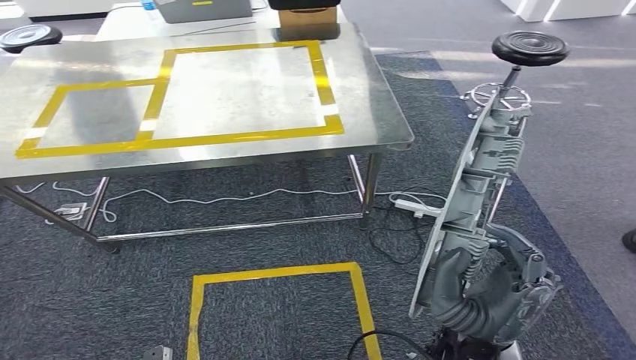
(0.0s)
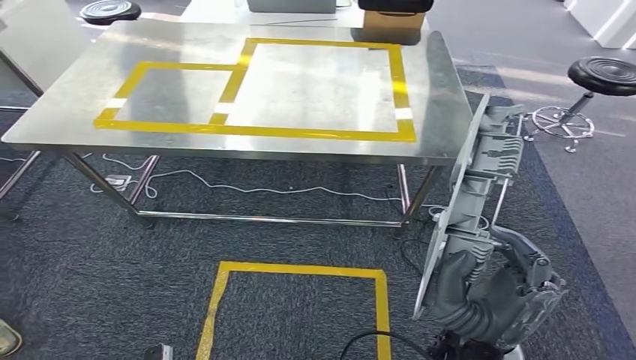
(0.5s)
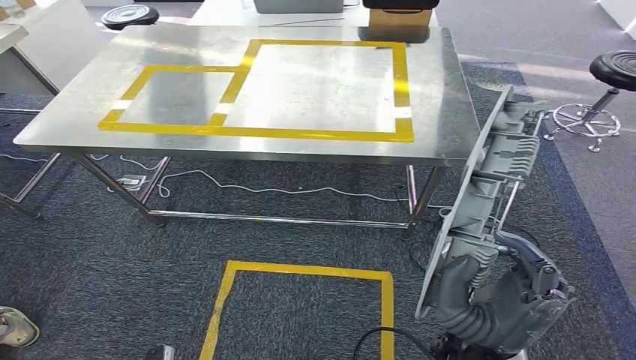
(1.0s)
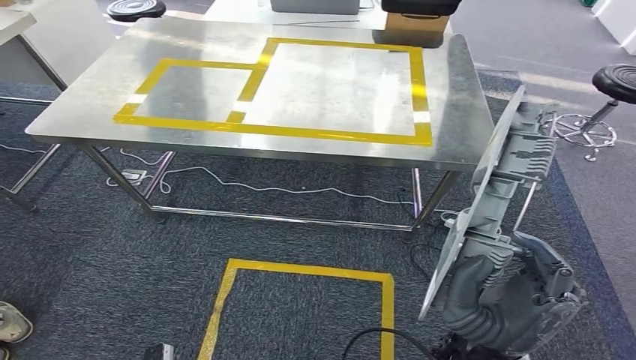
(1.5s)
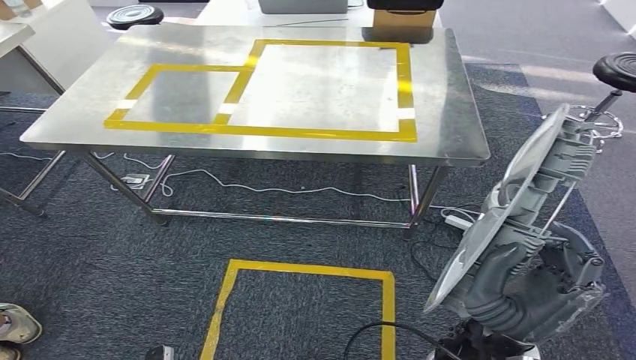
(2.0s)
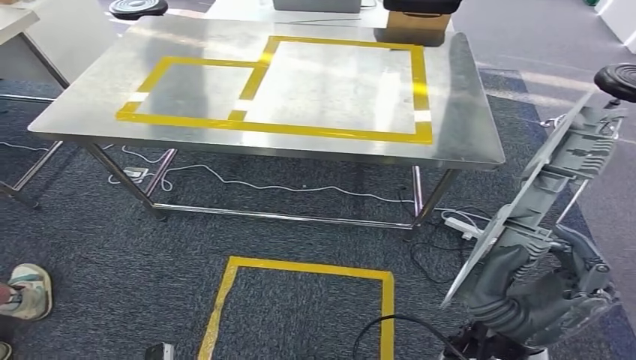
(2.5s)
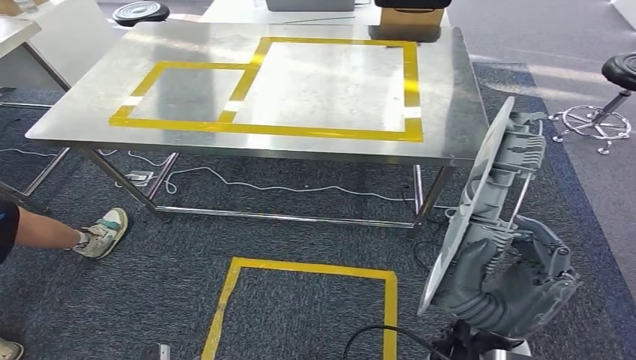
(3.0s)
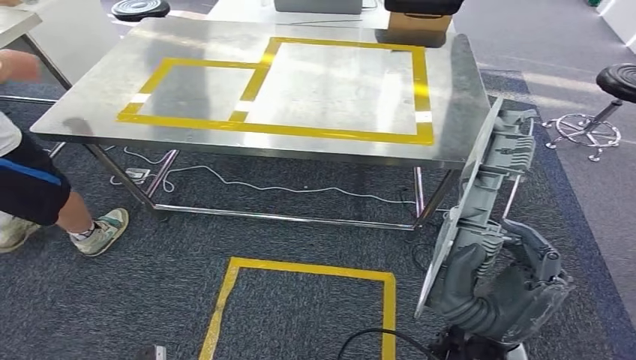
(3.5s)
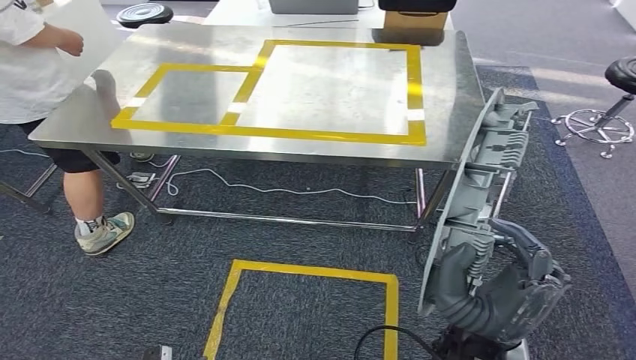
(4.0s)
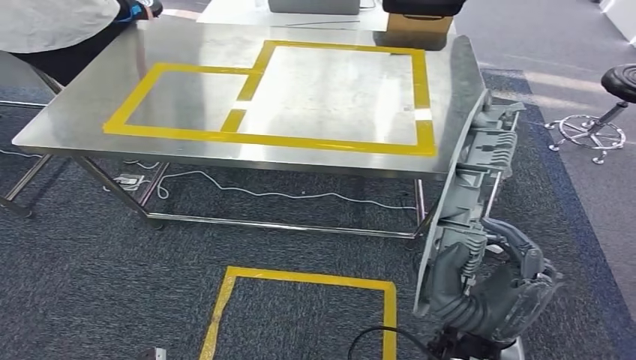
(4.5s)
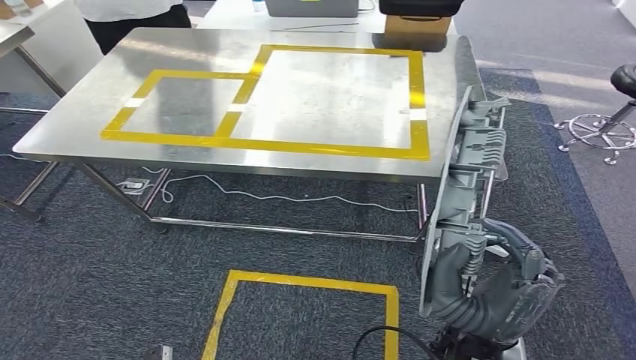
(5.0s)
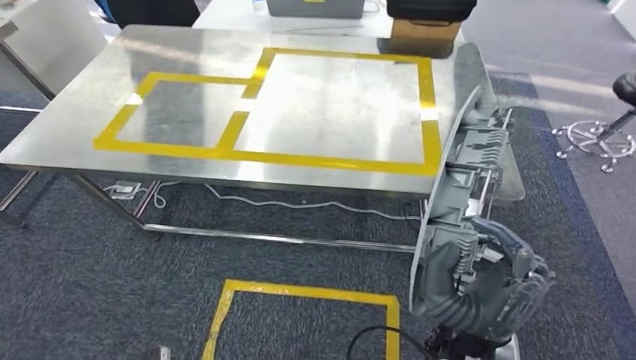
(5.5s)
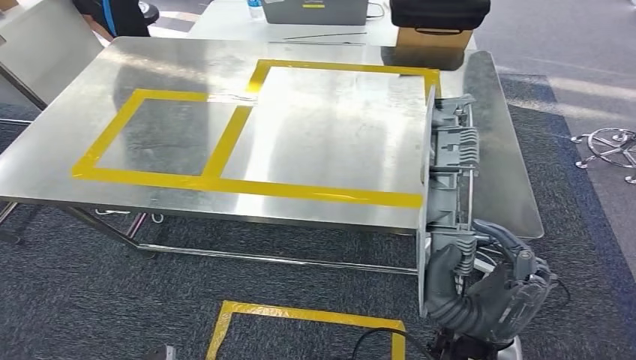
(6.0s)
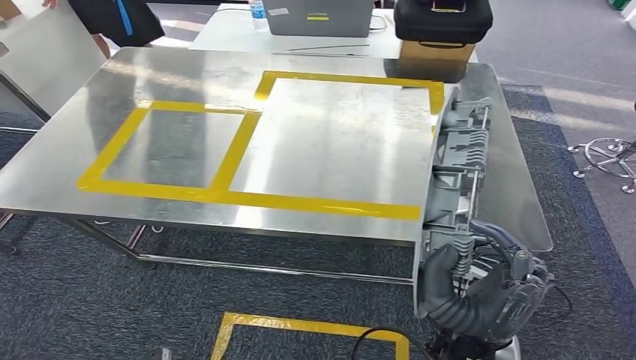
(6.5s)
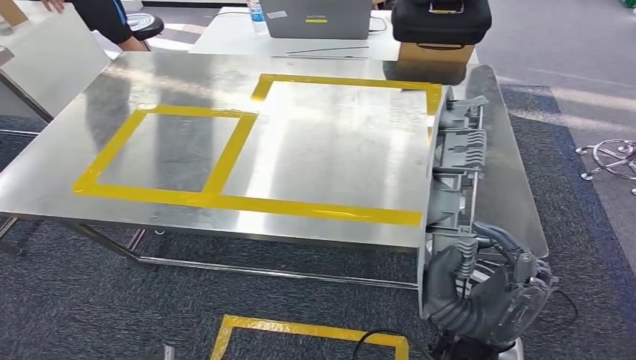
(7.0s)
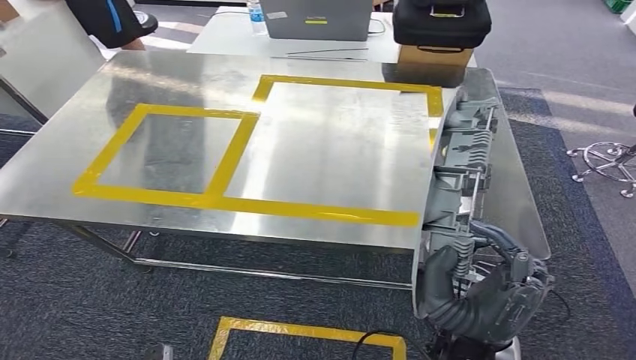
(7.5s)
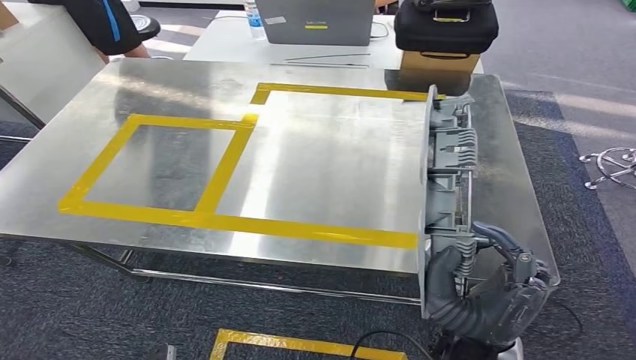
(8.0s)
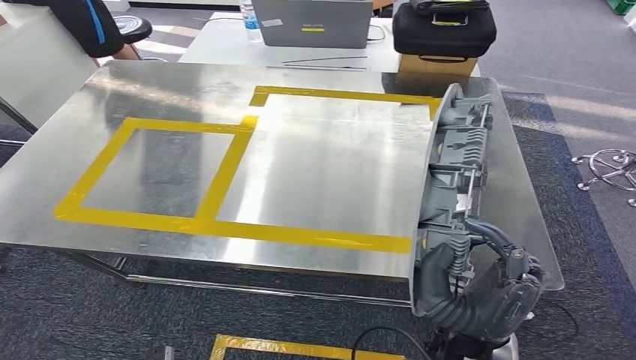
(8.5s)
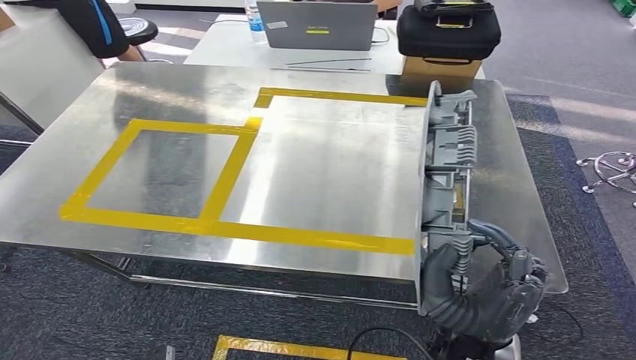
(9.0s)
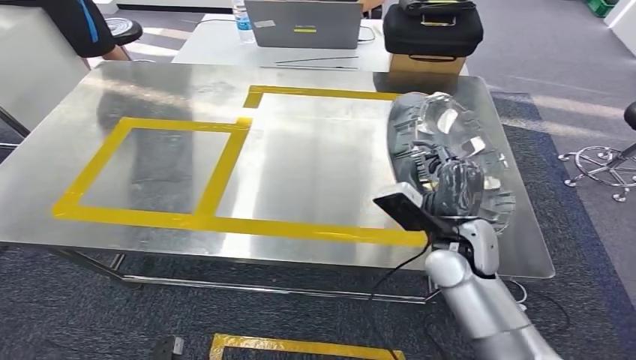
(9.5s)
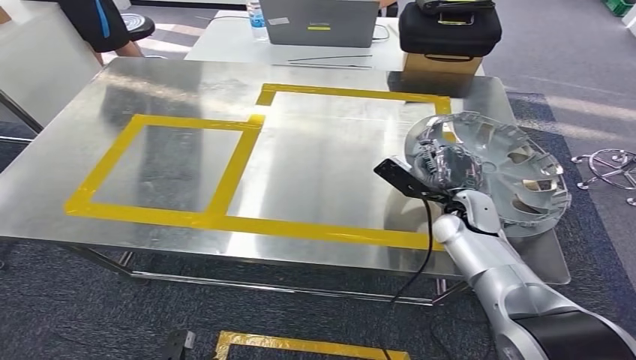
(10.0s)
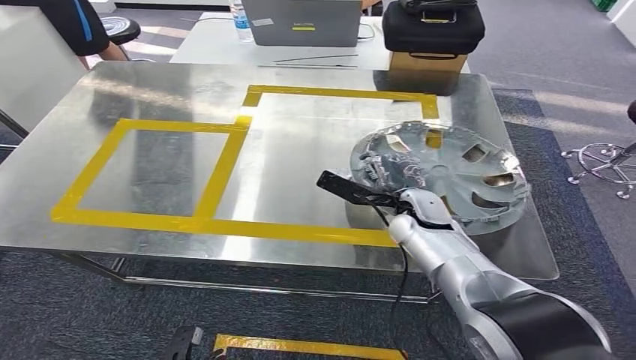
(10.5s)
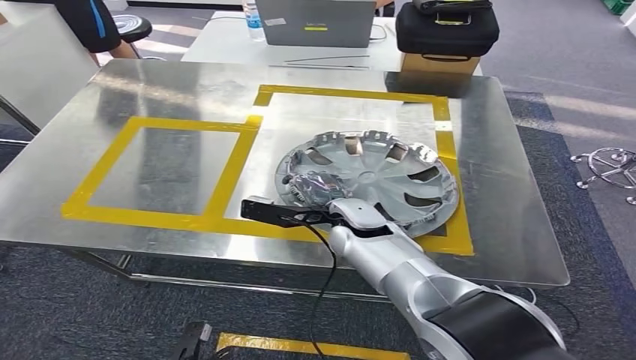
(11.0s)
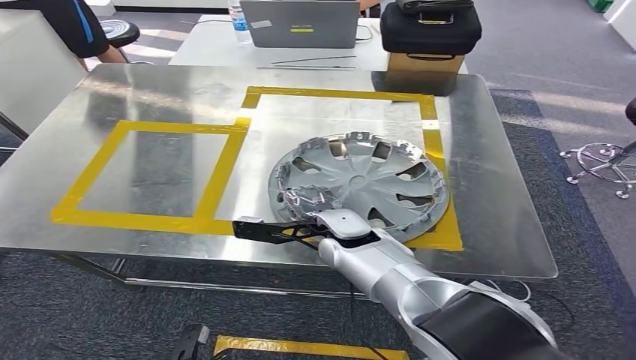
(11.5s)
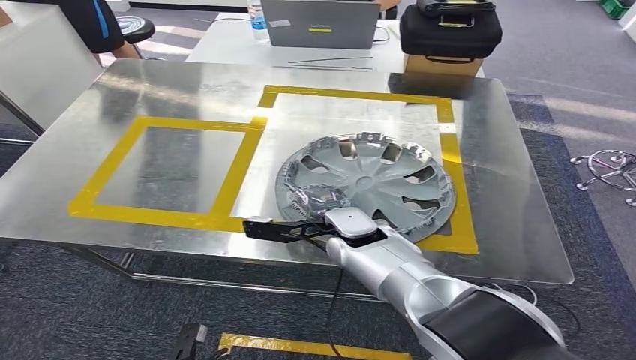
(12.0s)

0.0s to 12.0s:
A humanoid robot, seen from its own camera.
Step, 0.0s to 8.0s: Move the small component to the workbench.

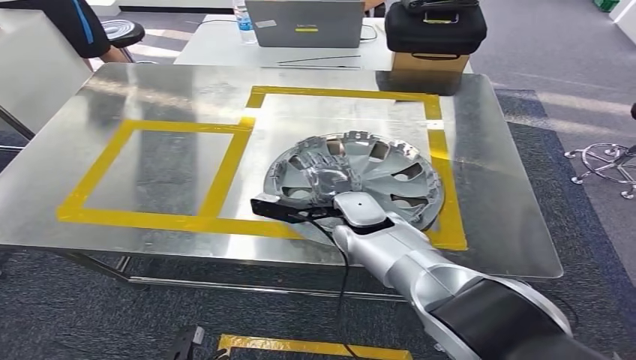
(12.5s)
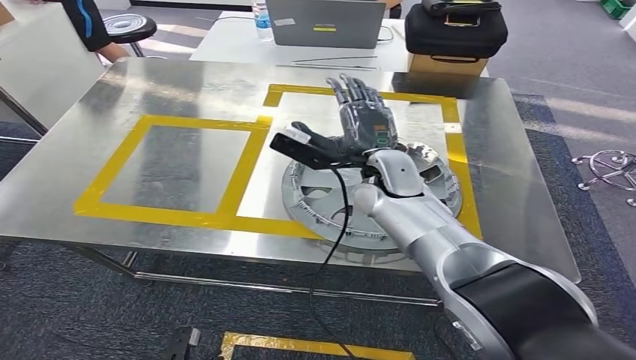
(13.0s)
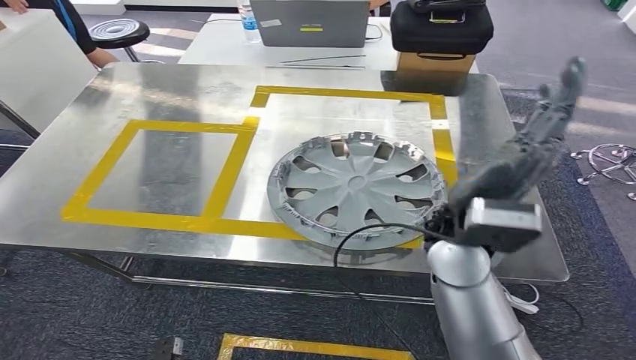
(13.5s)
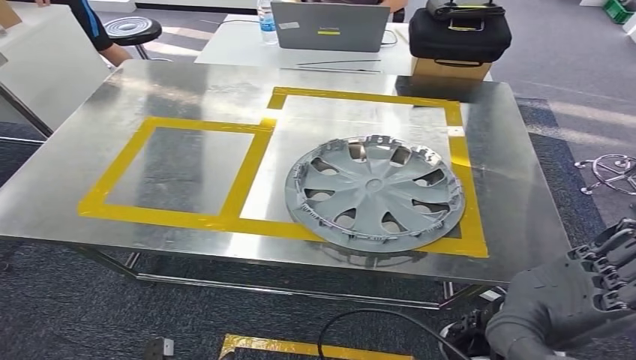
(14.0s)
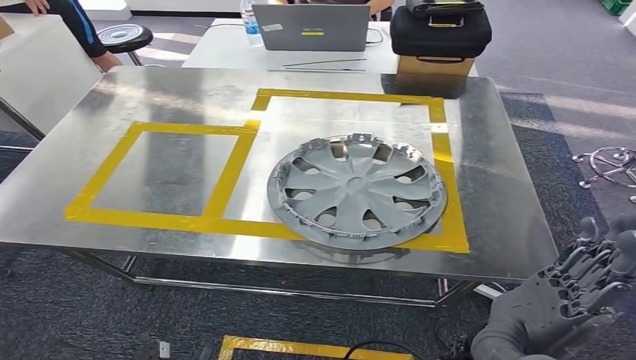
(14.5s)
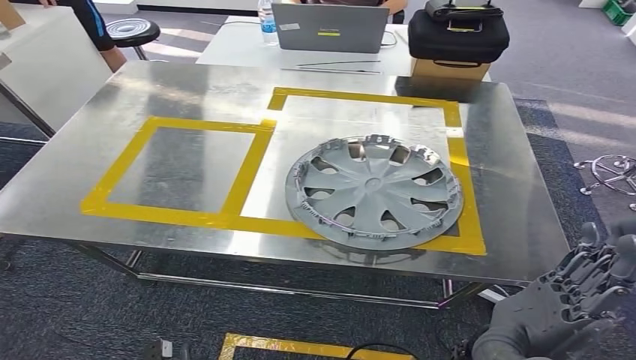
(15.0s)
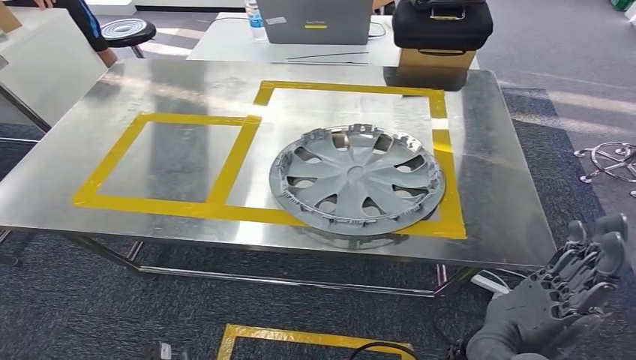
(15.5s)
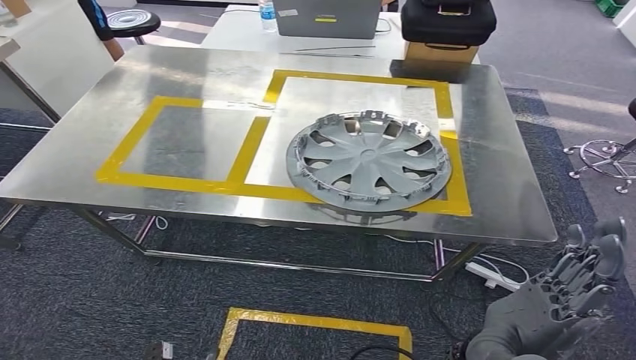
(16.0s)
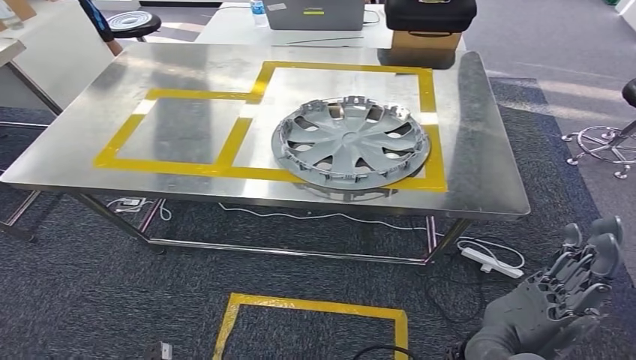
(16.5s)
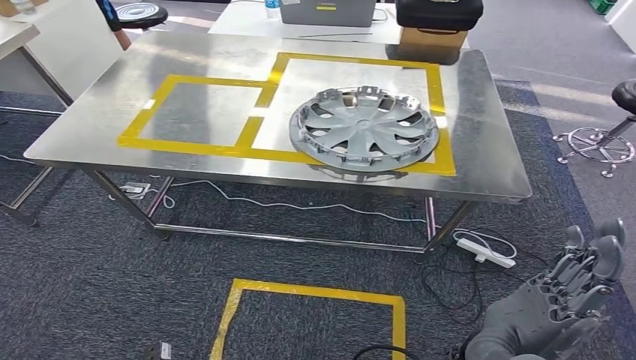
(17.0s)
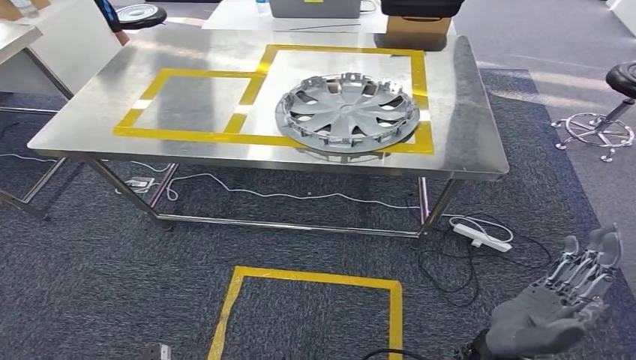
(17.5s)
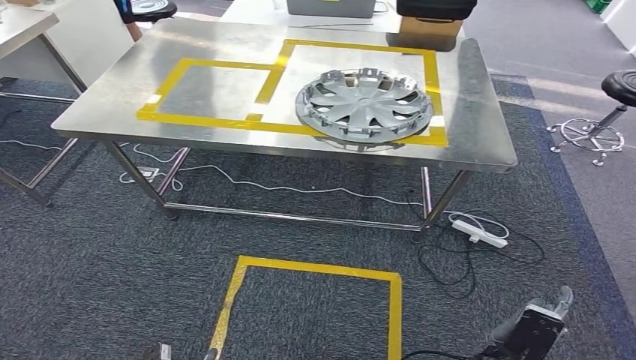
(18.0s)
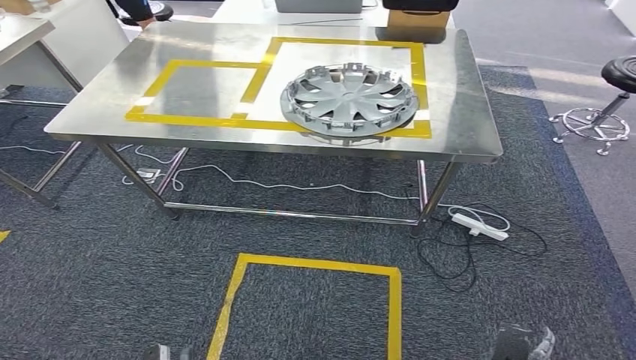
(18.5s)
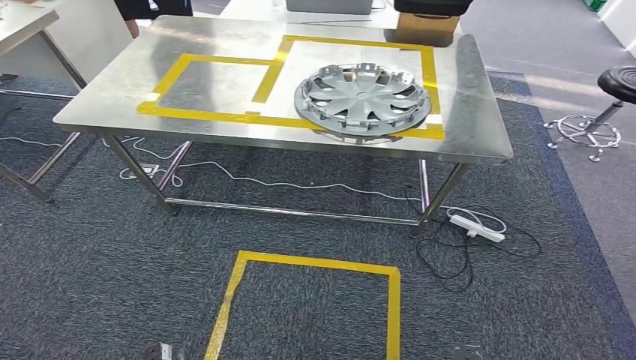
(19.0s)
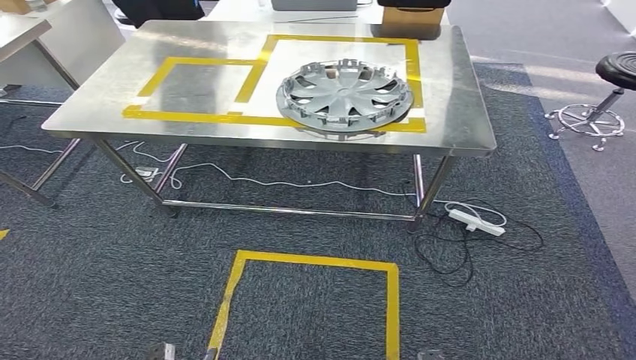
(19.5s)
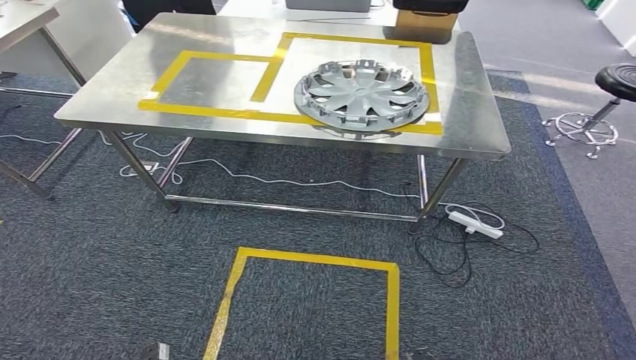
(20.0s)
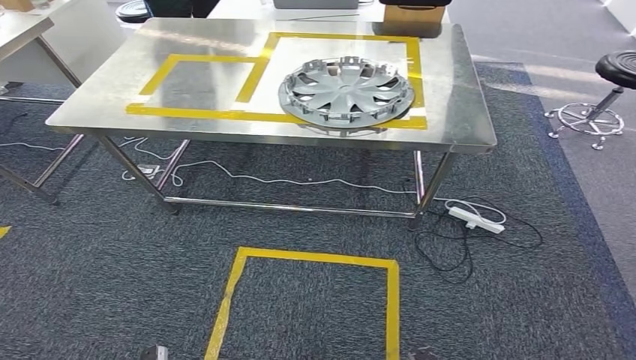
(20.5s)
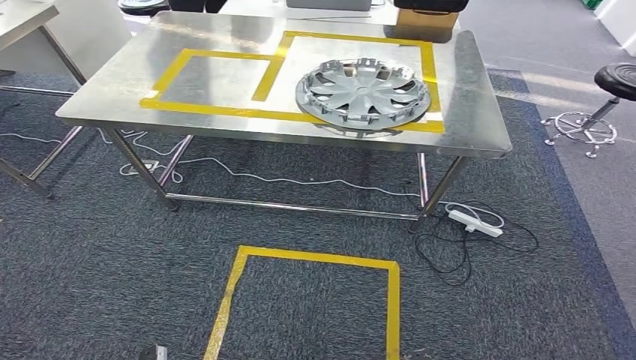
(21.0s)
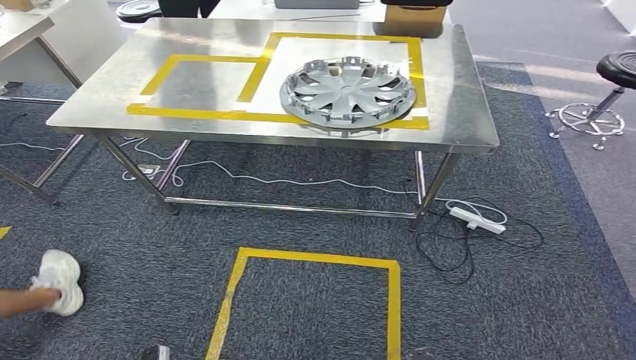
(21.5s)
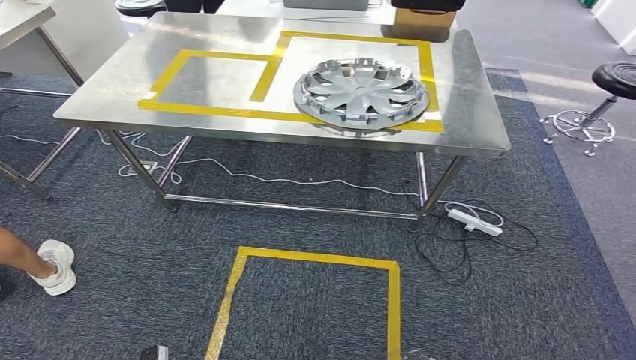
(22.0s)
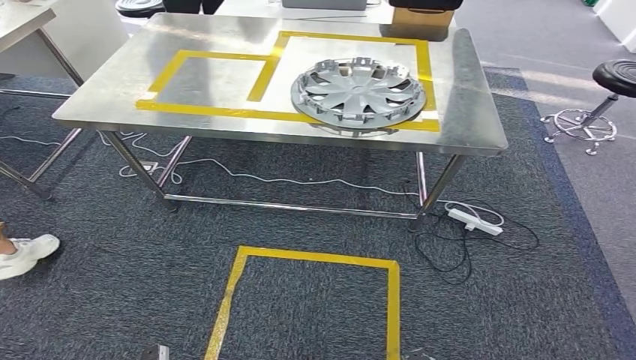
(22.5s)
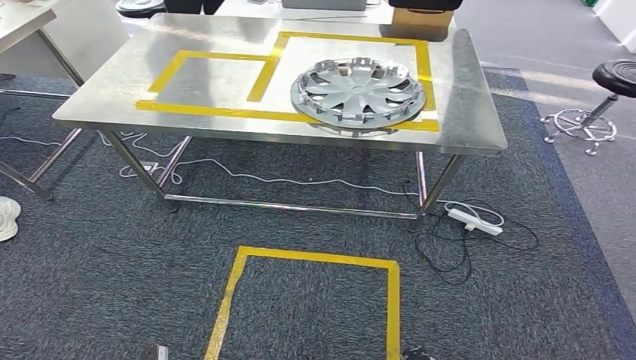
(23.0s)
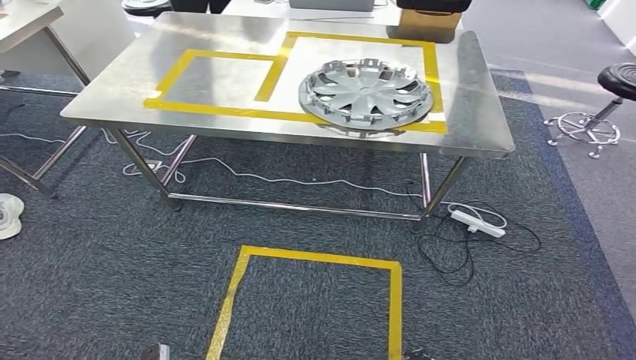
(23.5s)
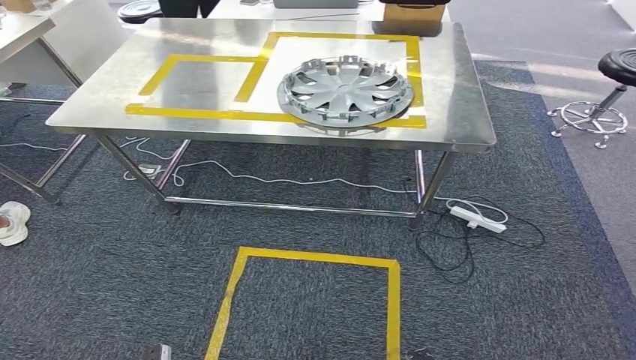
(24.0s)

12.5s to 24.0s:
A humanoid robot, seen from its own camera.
Step, 12.5s to 17.0s: Insert the small component into the corresponding slot on the workbench.
20.0s to 22.0s: The hands stay close to where they were, moving slightly.
